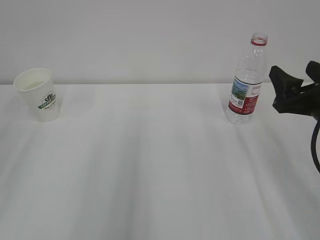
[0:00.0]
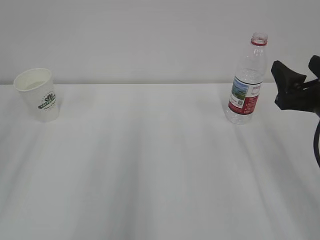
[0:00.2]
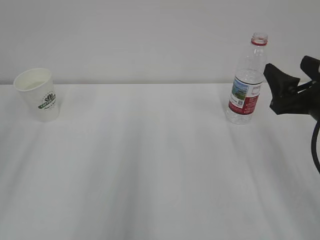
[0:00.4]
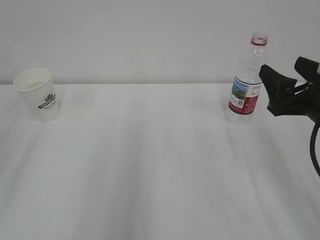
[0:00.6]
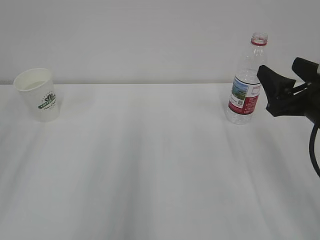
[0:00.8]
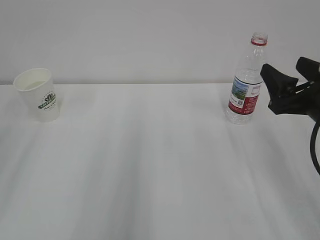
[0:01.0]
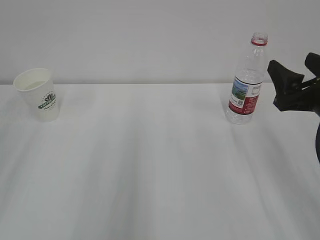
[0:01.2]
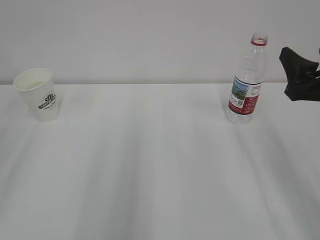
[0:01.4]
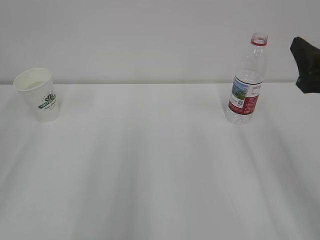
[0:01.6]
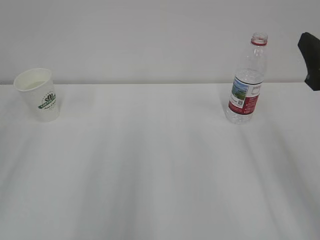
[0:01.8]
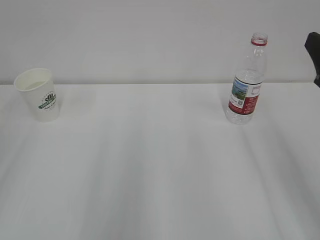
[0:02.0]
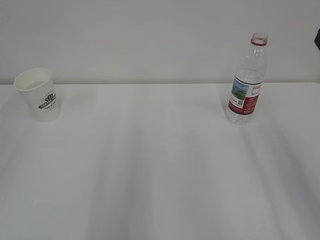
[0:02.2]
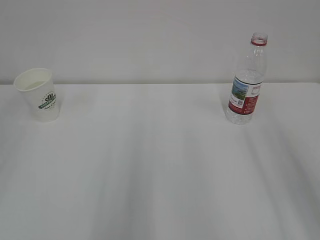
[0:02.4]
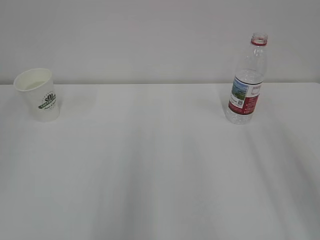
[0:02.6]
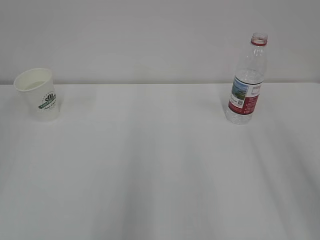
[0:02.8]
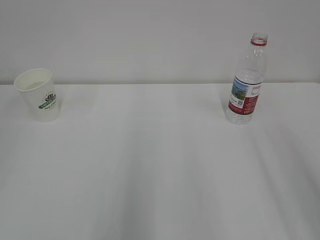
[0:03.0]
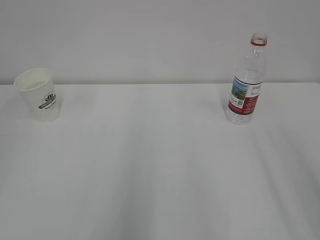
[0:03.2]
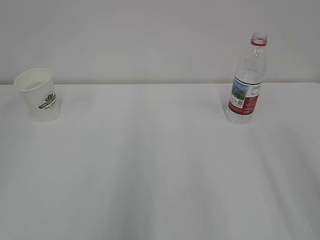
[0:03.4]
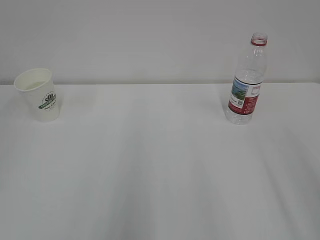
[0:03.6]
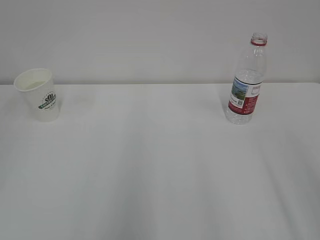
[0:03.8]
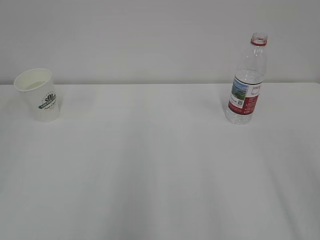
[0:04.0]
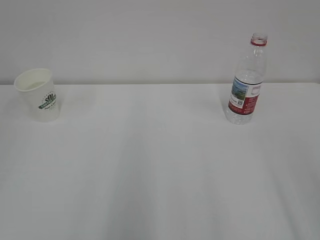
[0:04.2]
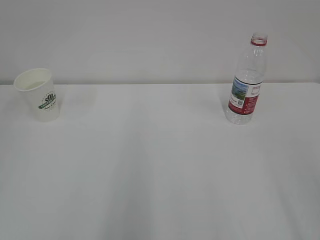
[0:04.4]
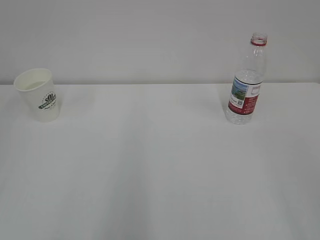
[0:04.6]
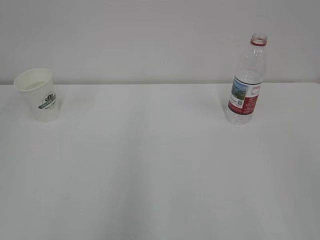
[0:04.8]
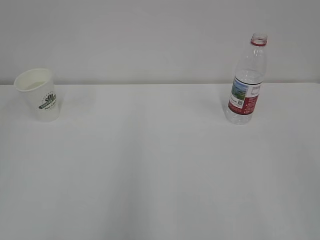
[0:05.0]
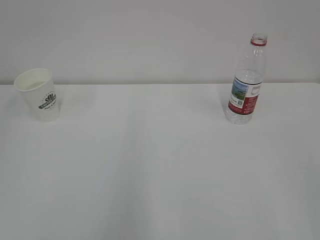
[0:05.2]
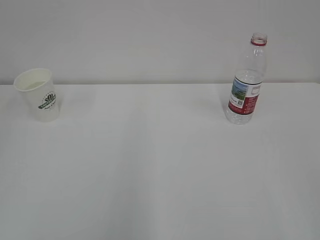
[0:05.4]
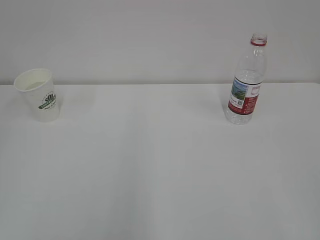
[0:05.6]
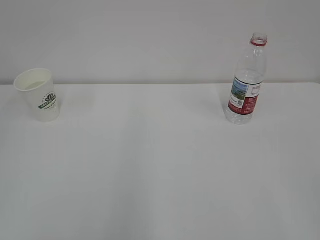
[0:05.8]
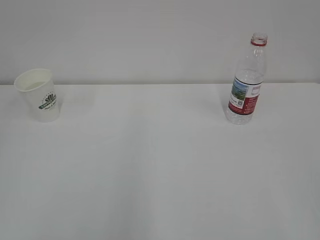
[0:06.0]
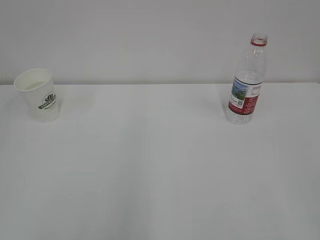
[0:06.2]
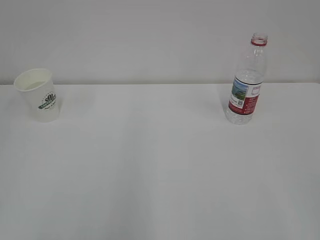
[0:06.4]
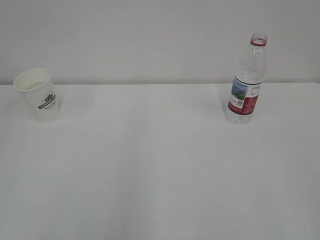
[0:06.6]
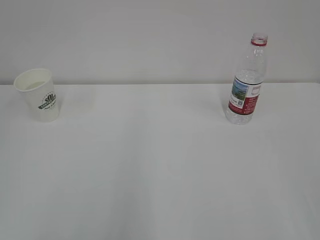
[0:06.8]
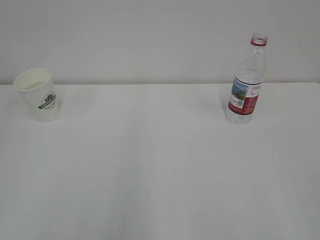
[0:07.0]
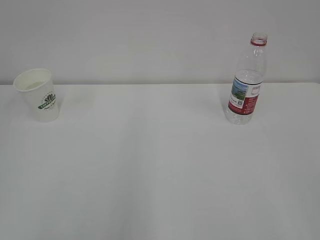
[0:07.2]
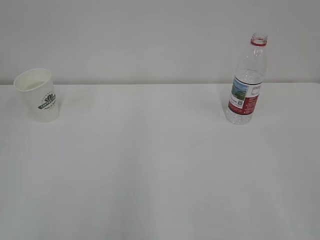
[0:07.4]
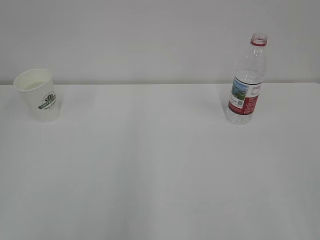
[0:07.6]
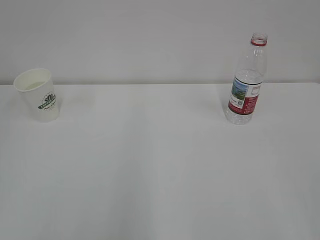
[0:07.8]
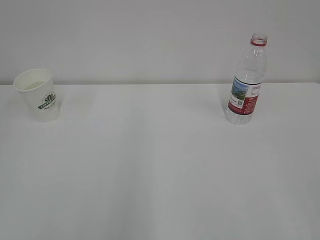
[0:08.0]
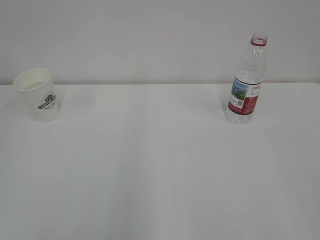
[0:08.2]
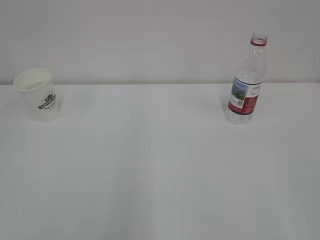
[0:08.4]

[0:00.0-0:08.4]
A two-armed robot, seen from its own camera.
0:00.0 to 0:01.4: The grippers move only a little.
0:01.4 to 0:02.8: The right gripper travels backward and upward by approximately 15 cm.
0:07.0 to 0:08.4: Neither gripper changes place.
